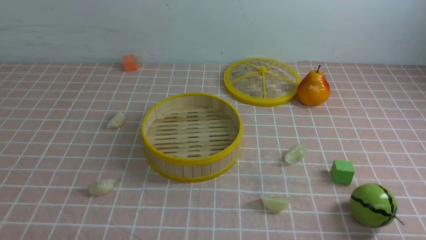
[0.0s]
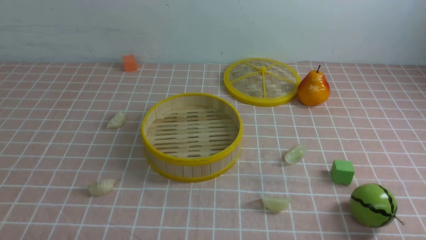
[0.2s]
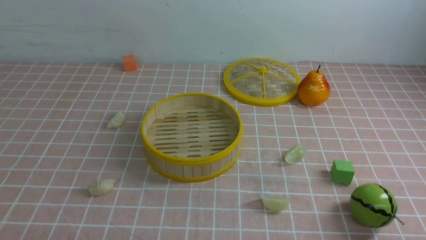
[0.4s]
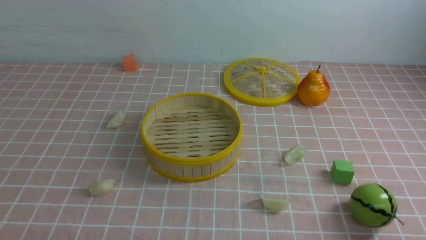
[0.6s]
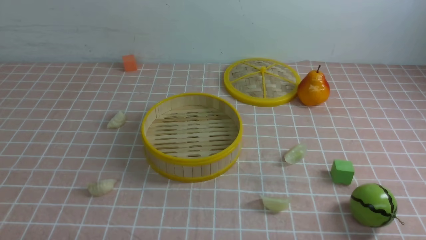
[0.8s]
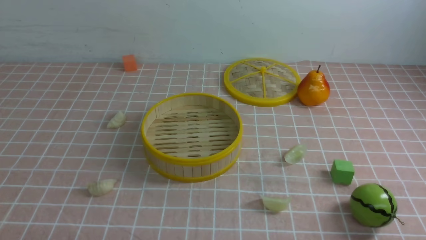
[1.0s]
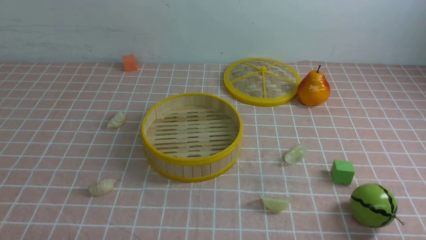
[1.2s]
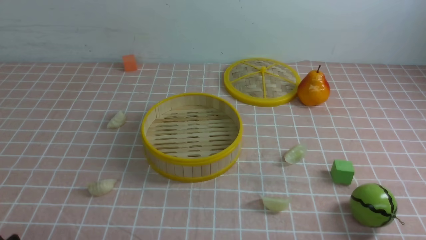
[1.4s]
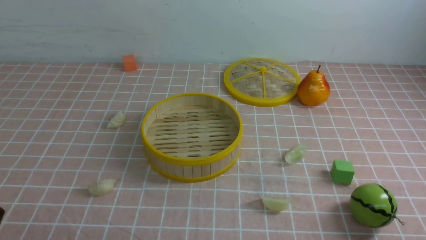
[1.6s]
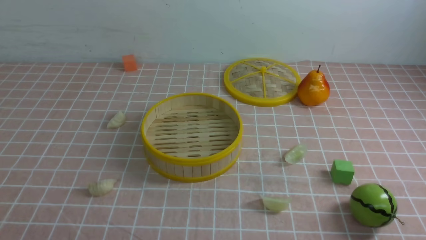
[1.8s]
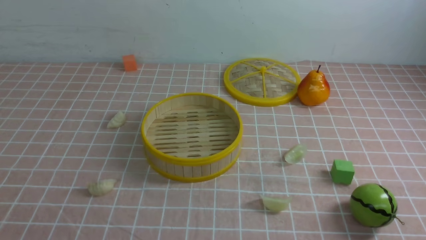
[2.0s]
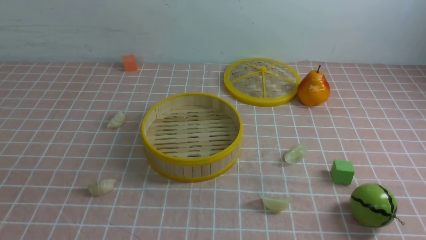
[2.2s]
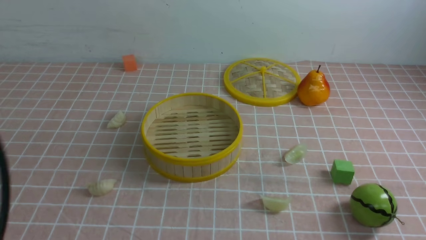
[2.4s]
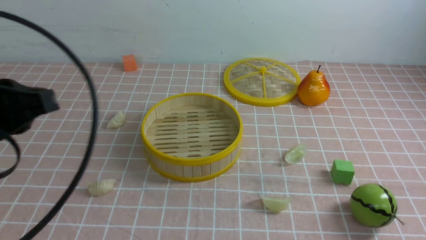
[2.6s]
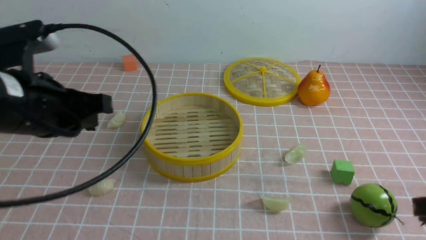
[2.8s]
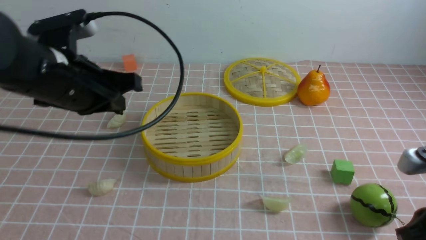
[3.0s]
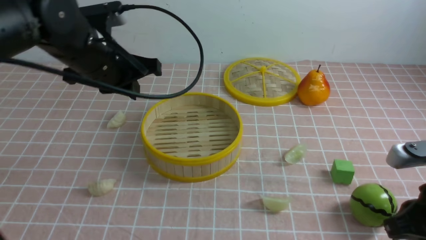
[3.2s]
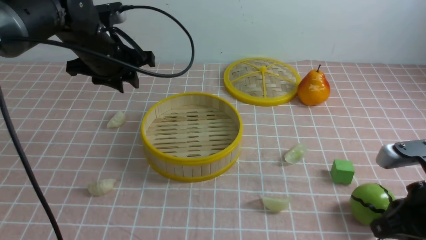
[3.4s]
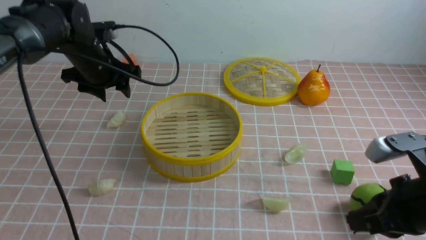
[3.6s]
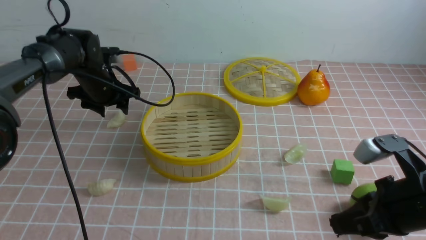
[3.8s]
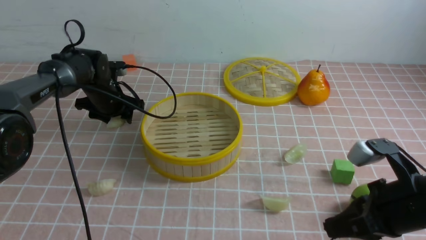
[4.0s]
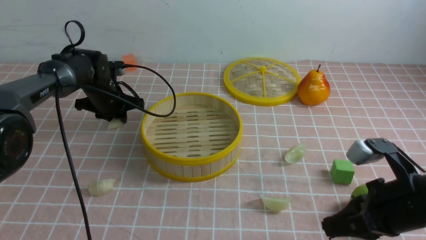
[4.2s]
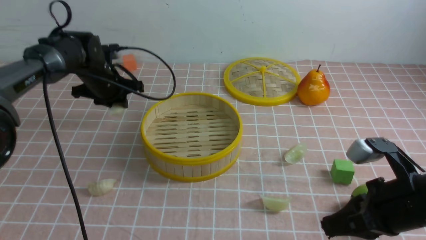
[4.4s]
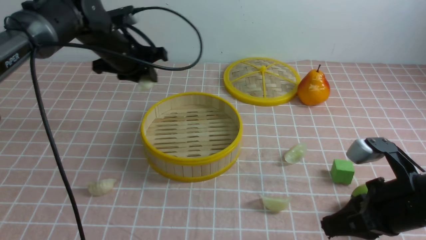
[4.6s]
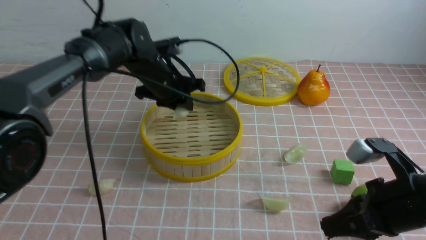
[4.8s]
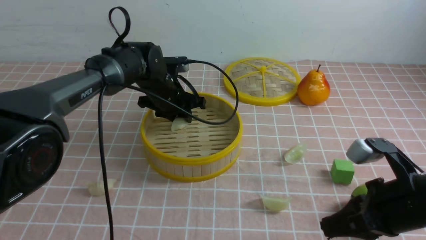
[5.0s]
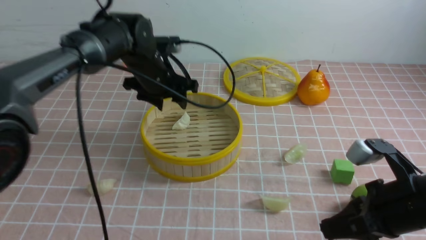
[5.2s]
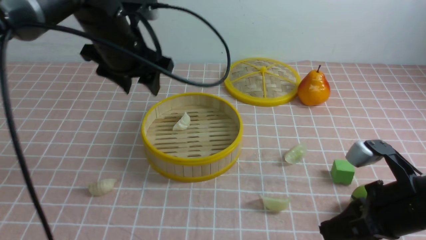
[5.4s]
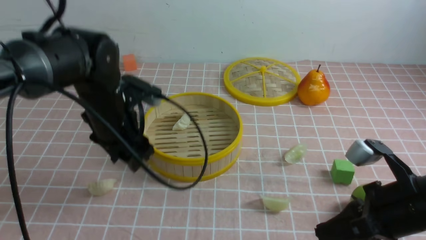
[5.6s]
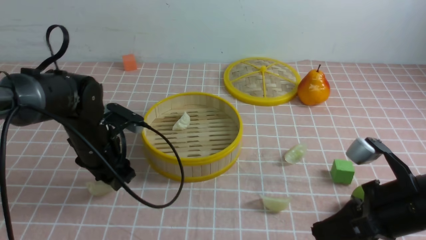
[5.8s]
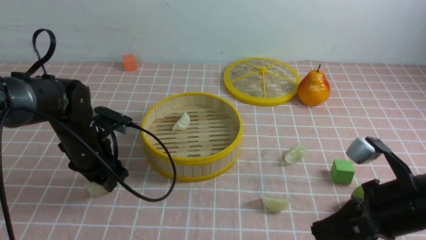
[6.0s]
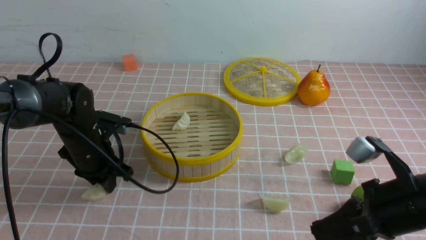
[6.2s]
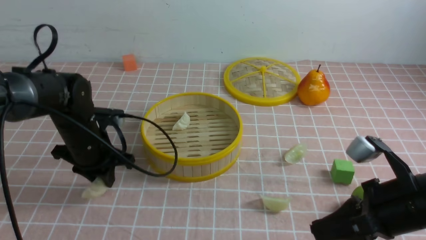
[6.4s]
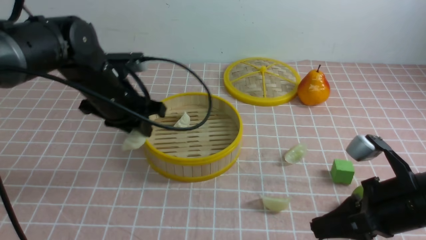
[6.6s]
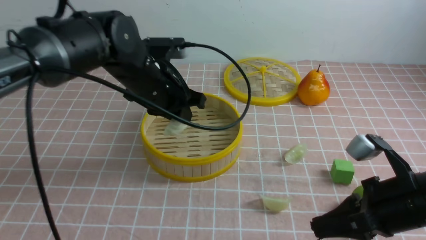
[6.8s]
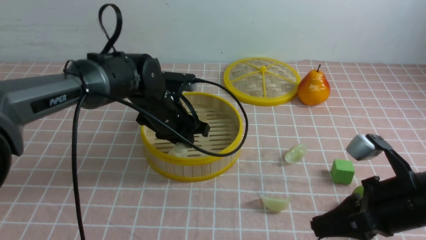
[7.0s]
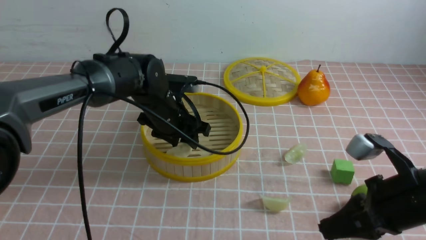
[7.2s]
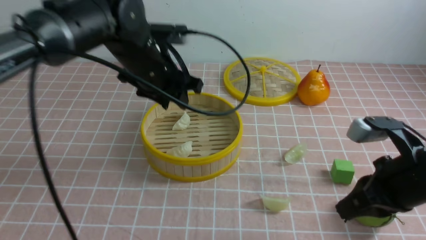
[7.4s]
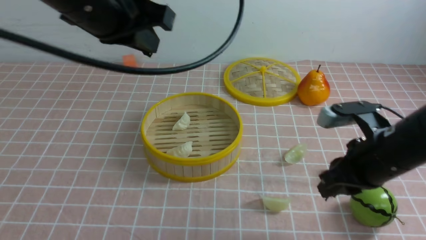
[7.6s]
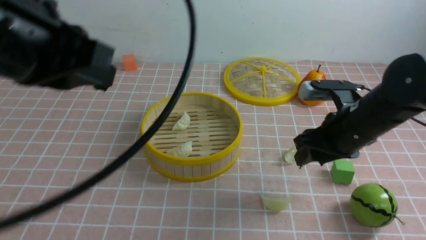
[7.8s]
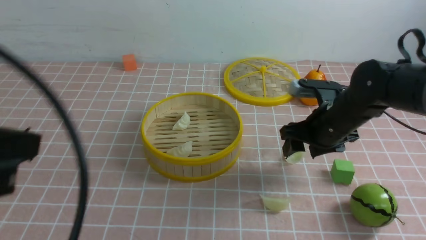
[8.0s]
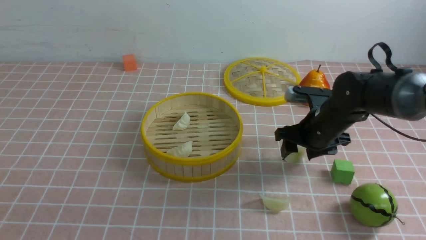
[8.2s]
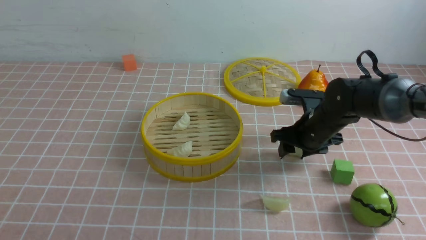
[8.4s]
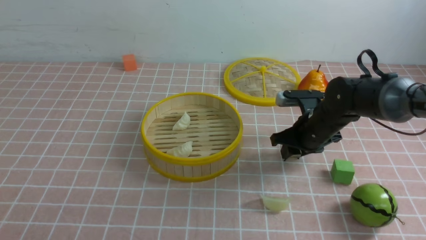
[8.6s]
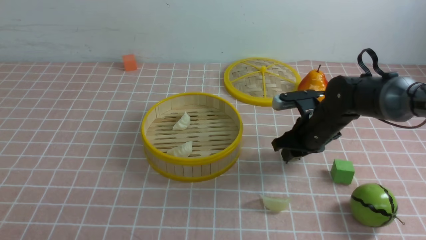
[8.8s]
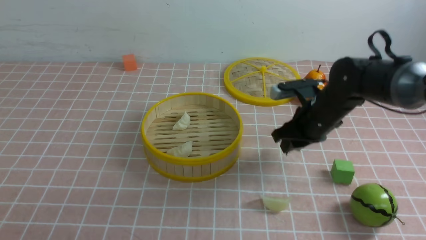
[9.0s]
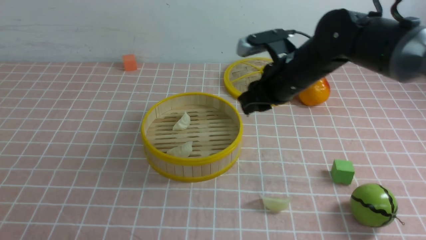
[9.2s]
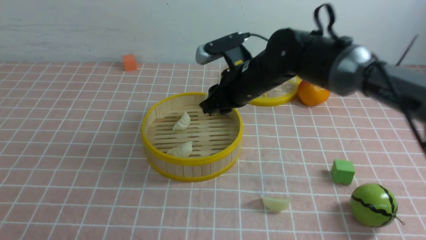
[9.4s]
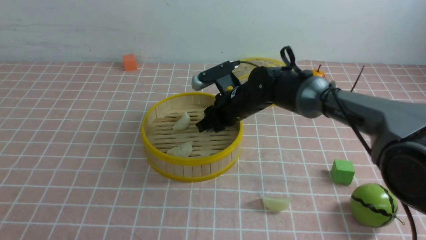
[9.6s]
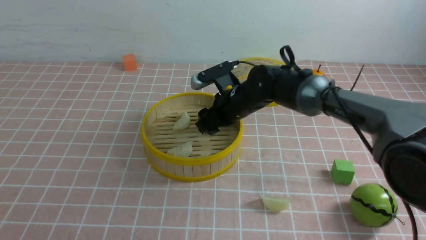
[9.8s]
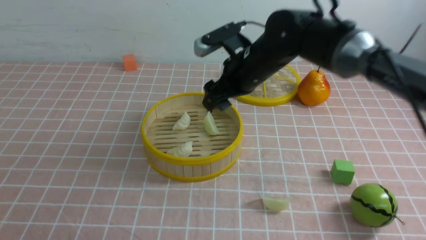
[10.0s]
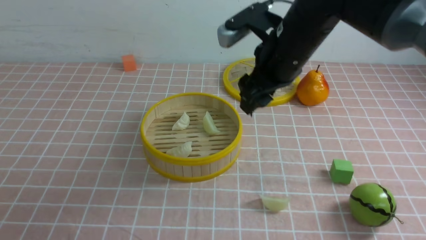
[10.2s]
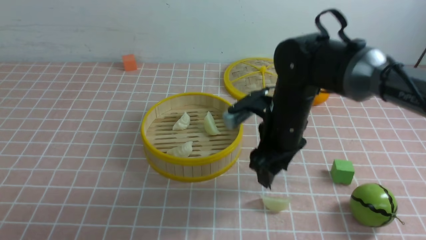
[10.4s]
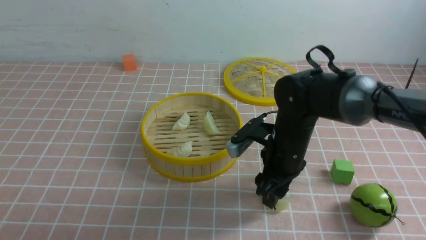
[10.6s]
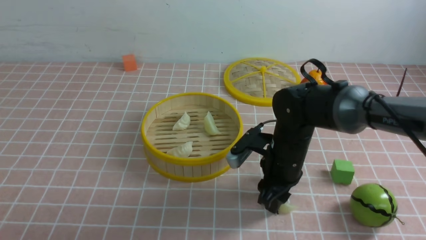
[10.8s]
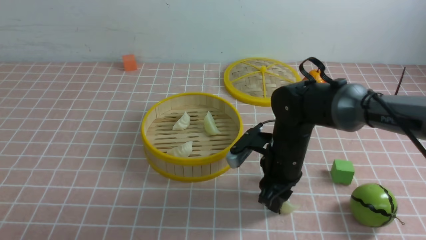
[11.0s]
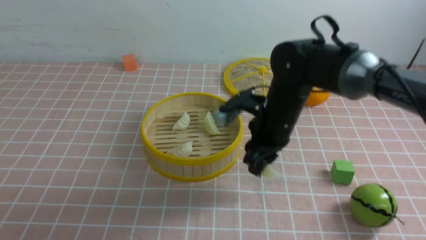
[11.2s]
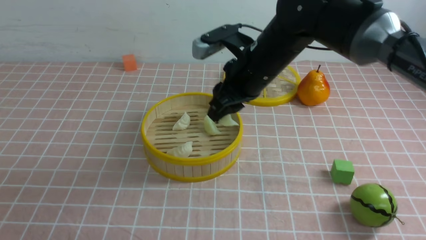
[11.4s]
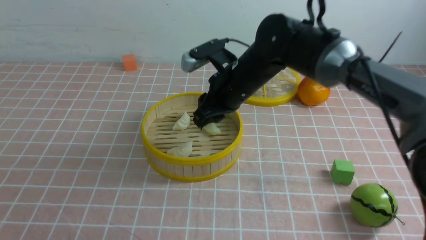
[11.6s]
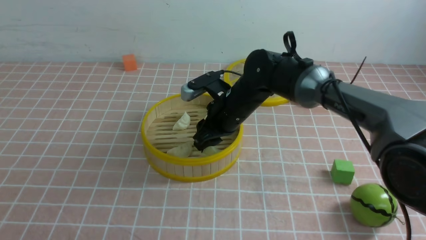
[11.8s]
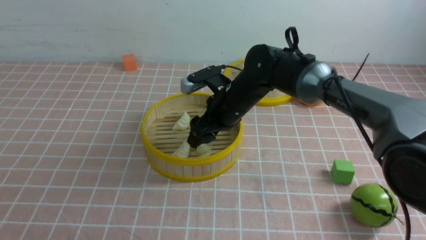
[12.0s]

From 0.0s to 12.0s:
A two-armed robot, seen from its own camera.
Task of the whole recording: put the dumplings into the steamer on the table with the pink tablecloth.
Step, from 0.0s to 4.2s: use the left arm to grab a dumpling.
Step, from 4.4s to 5.0s: use the left arm to put the dumpling into the steamer.
Step, from 5.2s to 6.2s: use the left arm to grab a dumpling.
Step, from 6.4s to 7.2s: use the left arm to put the dumpling into the steamer.
Step, from 7.4s to 8.8s: use the right arm to grab a dumpling.
Step, from 9.0s to 9.8s: use the right arm to put the dumpling into the steamer.
Step, from 10.0s to 11.0s: use the right arm to grab a dumpling.
Step, from 11.2s to 12.0s: use the right arm to put the dumpling into the steamer.
From 1.6s to 3.0s: The right gripper shifts about 15 cm forward, and closes up. Meanwhile the left gripper travels forward and upward by approximately 30 cm, and closes.
From 3.0s to 4.4s: The right gripper moves some 5 cm, while the left gripper travels forward and downward by approximately 25 cm, and opens up.
From 4.4s to 6.0s: The left gripper shifts approximately 15 cm backward and downward.
From 6.0s to 7.6s: The left gripper goes some 25 cm upward, and closes its fingers, while the right gripper is displaced forward by about 5 cm, and opens up.
From 7.6s to 9.0s: The right gripper heads forward and to the left, covering some 15 cm, and opens, then closes once more. The left gripper shifts roughly 30 cm backward, downward and to the left.
From 9.0s to 10.4s: The right gripper heads to the left, covering about 5 cm, and opens up.
From 10.4s to 12.0s: The right gripper moves up and down over about 10 cm, changing direction 2 times, and closes and opens again.

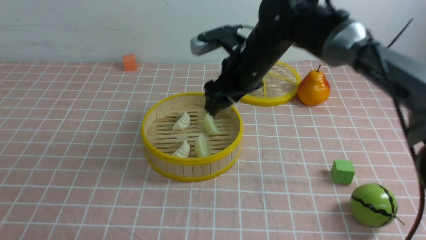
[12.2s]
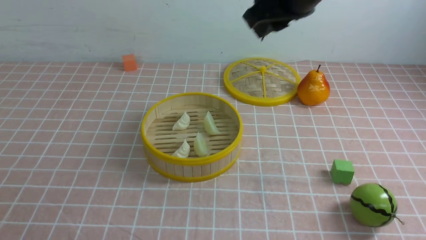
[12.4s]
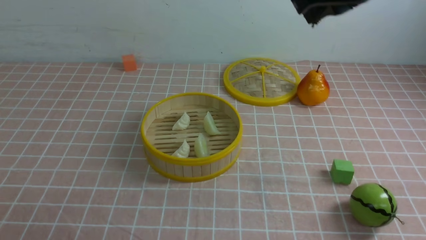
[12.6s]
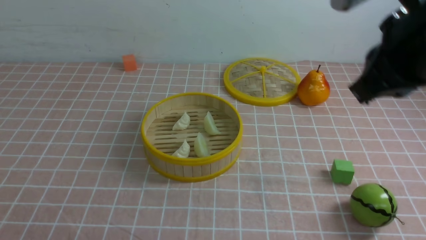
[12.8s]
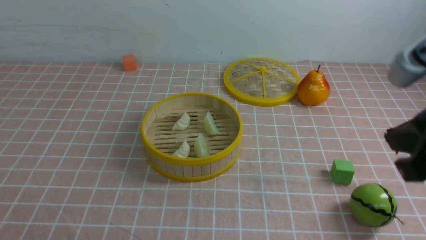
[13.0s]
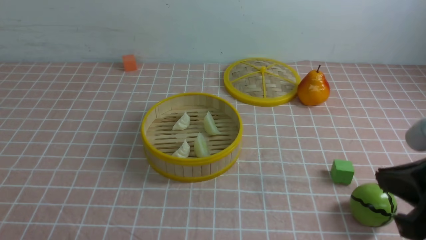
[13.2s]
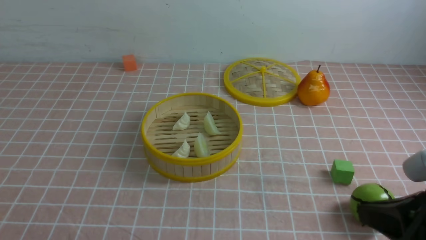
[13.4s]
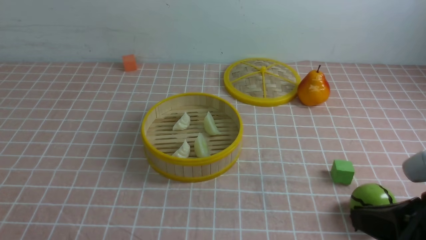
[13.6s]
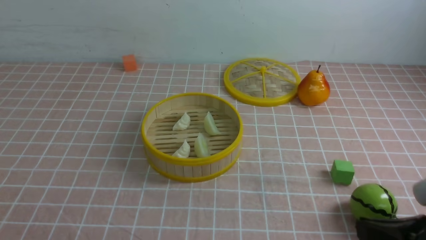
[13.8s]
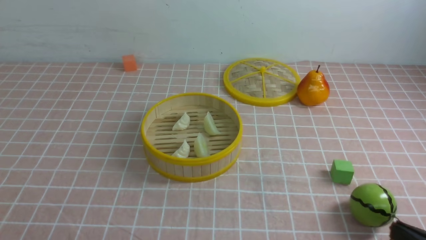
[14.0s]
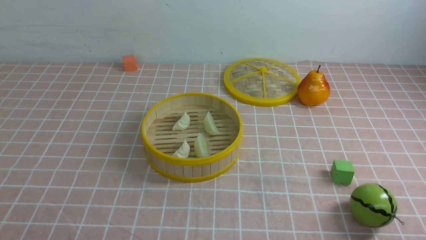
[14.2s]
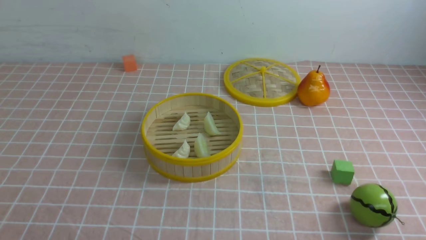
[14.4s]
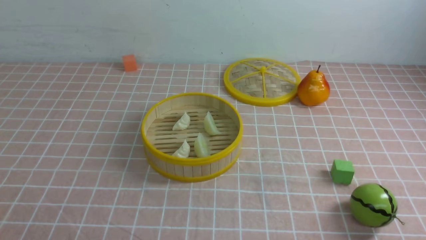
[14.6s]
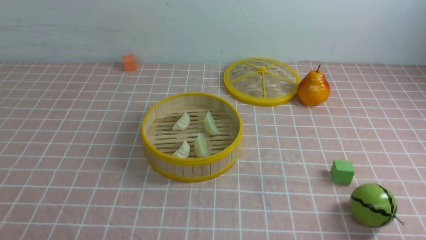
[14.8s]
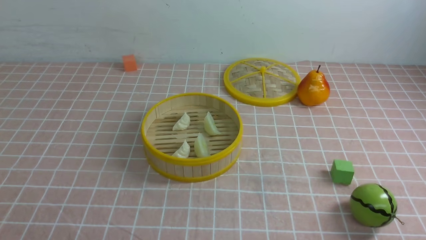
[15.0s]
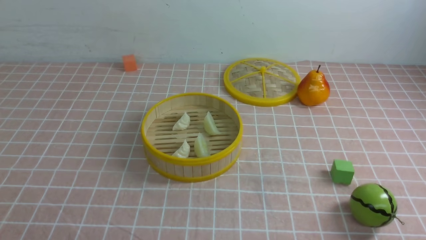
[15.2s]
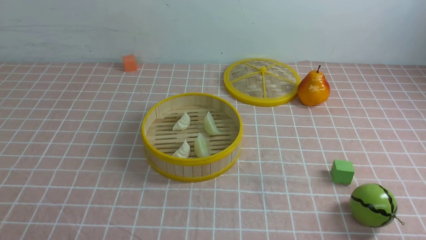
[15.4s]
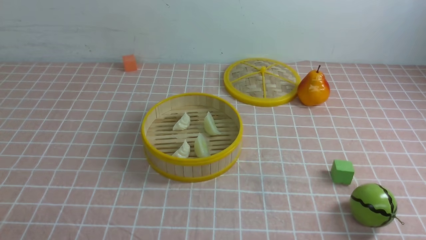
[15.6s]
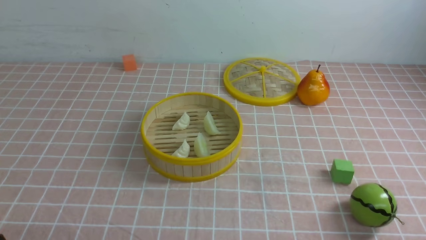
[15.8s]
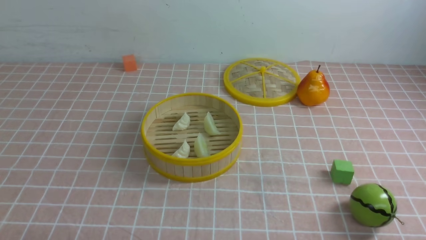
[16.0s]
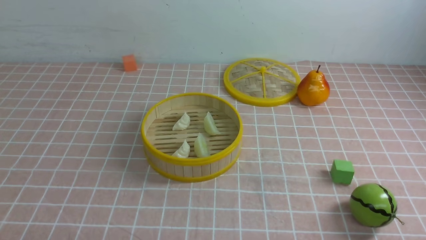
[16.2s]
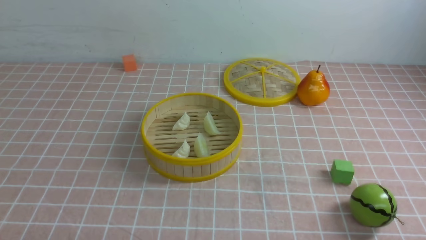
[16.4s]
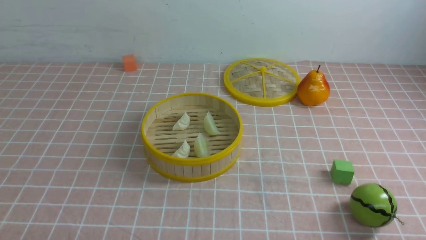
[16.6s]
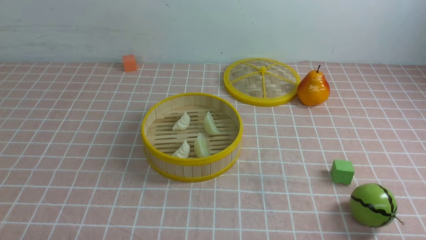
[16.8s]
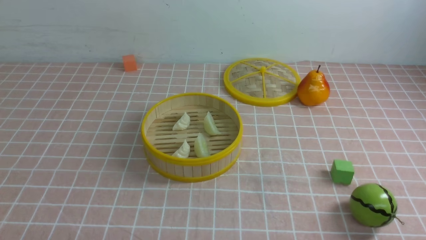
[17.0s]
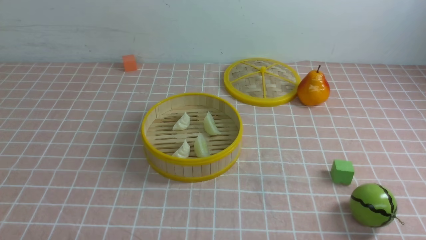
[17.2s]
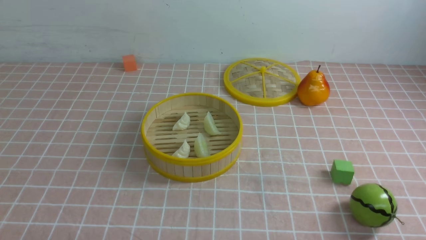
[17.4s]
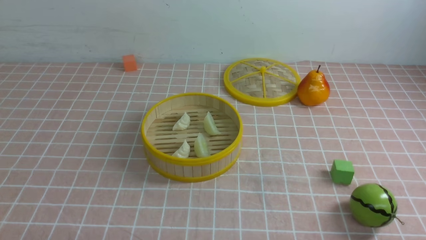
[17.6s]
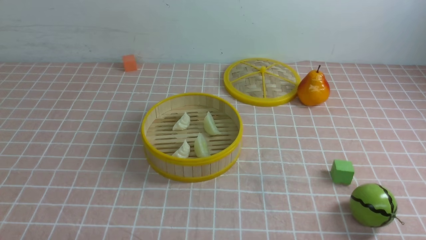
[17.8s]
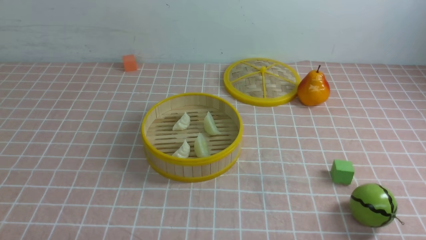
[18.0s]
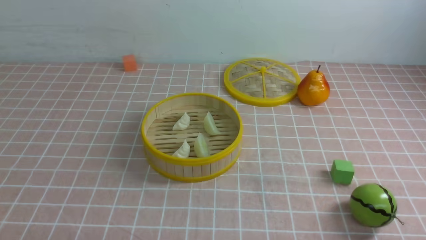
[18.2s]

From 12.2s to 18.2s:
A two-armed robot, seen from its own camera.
Task of the whole recording: put the dumplings into the steamer on the table with the pink tablecloth.
From 12.2s to 13.8s: The right gripper moves backward and to the right, roughly 35 cm, and closes its fingers.
From 13.8s to 15.2s: The right gripper travels downward, to the right and backward by about 10 cm.
From 16.6s to 18.2s: Both grippers stay about where they are.
